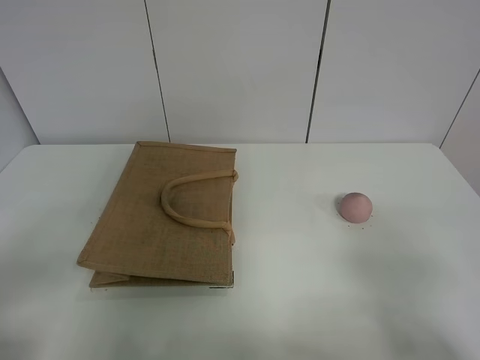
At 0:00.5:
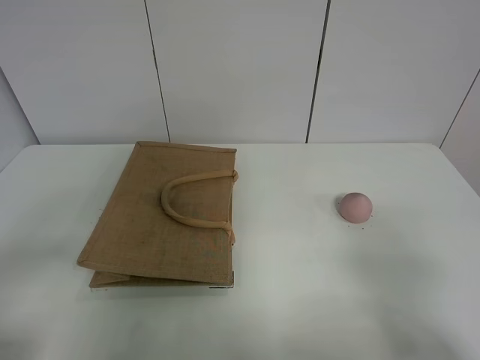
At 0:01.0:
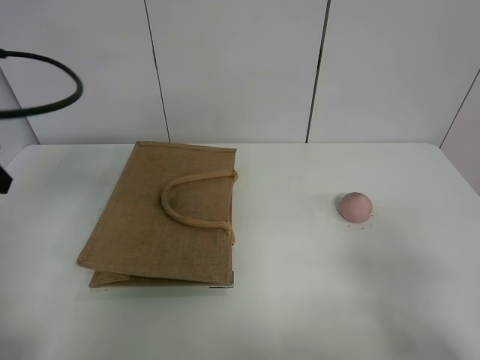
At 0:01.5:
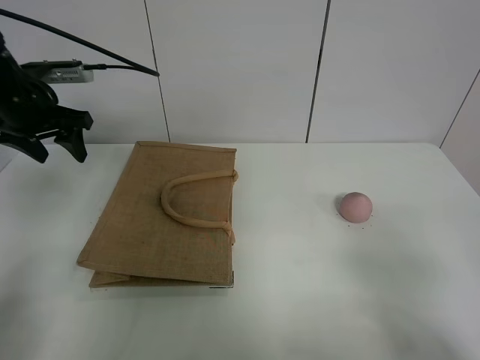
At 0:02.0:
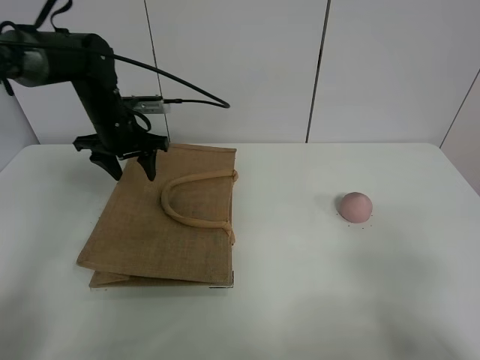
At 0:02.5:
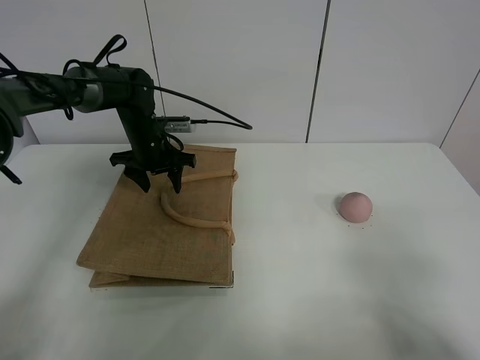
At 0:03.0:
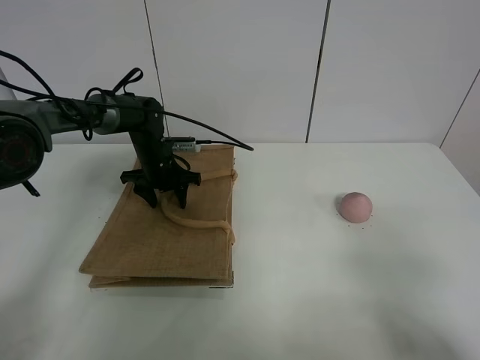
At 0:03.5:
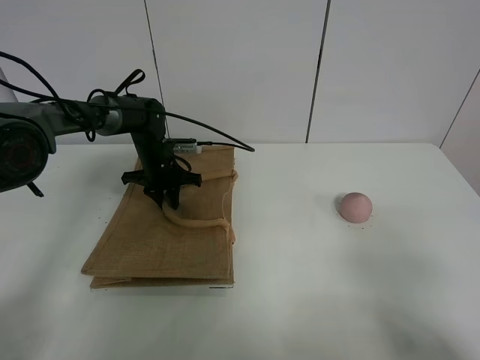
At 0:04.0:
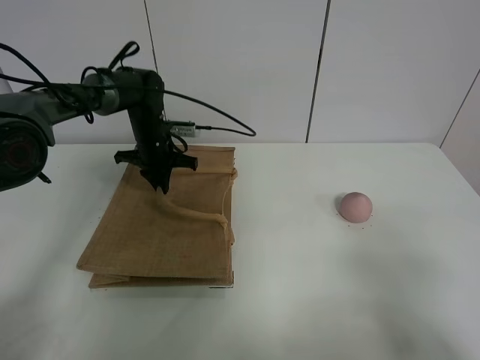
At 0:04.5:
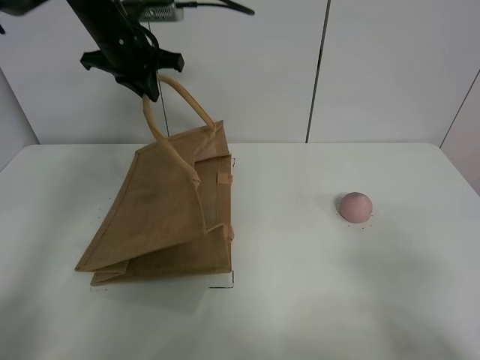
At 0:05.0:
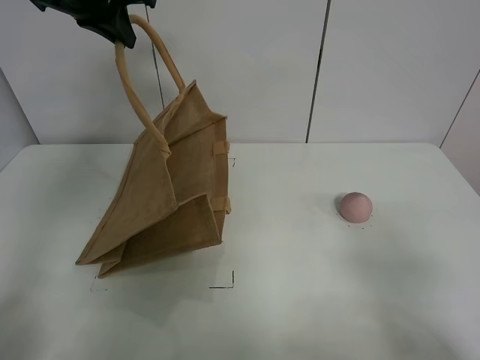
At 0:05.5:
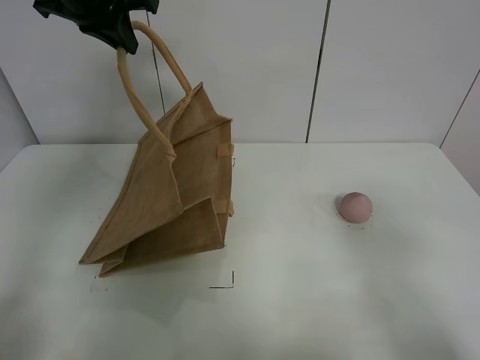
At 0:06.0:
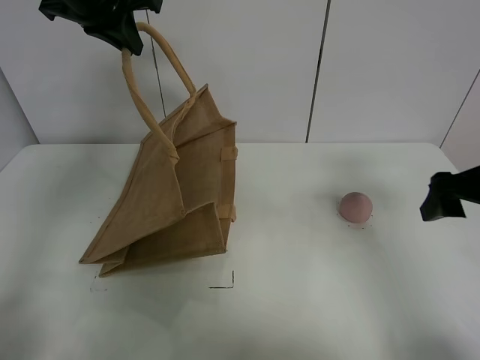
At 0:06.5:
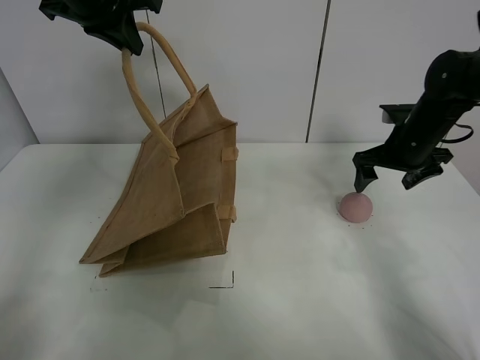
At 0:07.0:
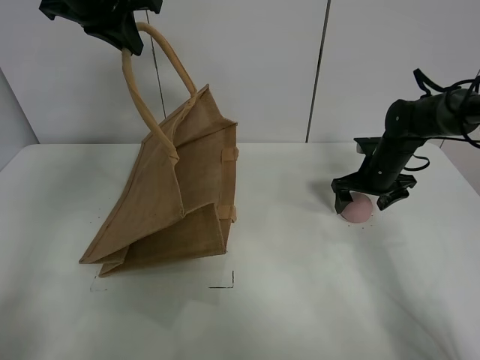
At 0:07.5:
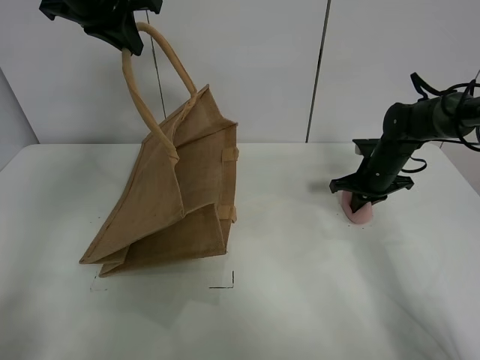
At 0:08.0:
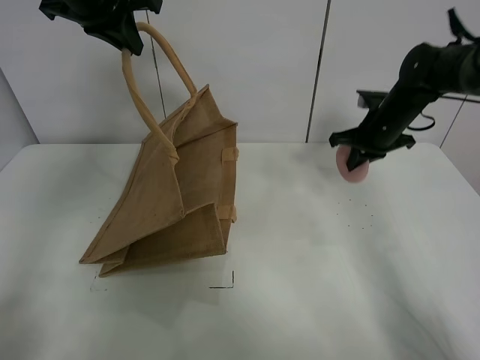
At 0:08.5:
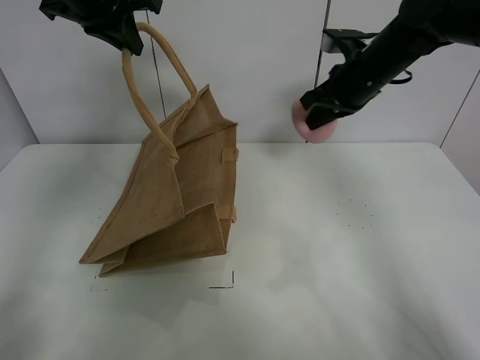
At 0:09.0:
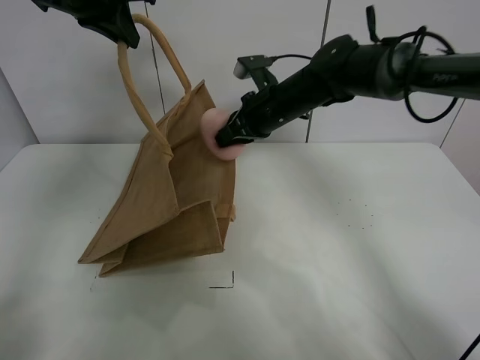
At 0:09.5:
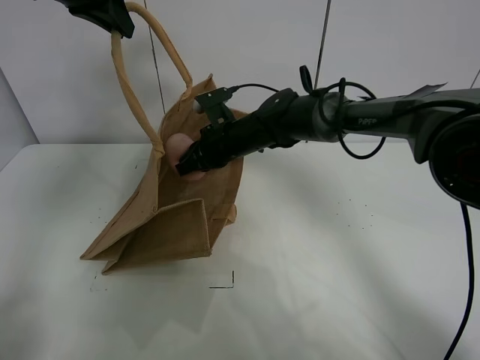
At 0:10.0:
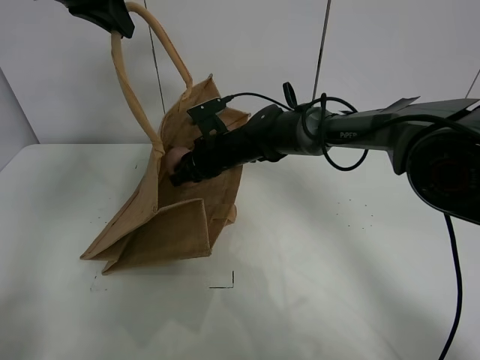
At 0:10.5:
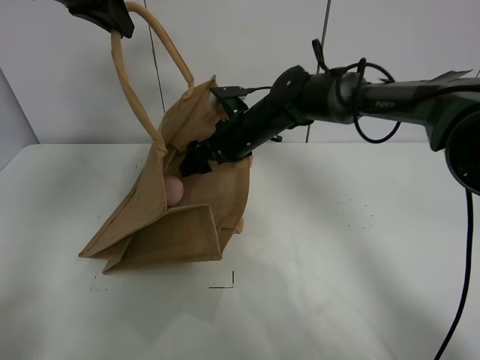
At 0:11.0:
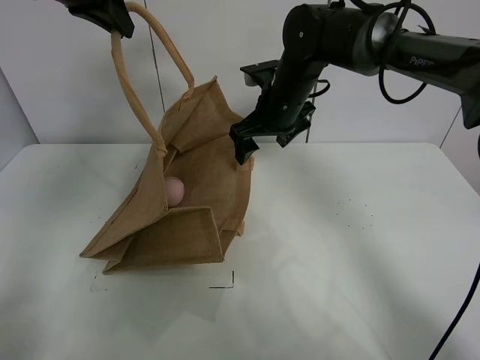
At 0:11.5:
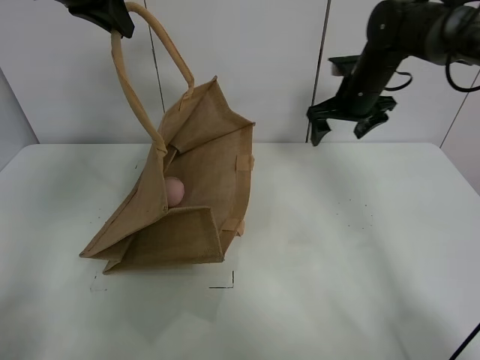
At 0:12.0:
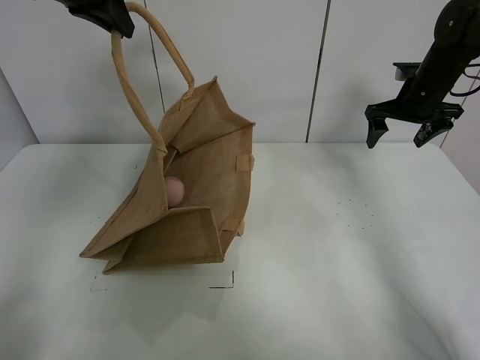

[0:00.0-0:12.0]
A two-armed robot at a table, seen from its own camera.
Task of the whole recording: open the brown linen bag and put the peach in the bag.
Step, 0:00.0 to 0:05.0: Lift the handbag with left gripper.
Step, 0:05.5 to 0:07.5: Grasp the peach with right gripper.
Step, 0:08.0 to 0:11.0: Place the peach in the handbag with right gripper.
0:00.0 to 0:02.0: The left gripper heads forward, covering roughly 40 cm.
0:02.0 to 0:04.0: The left gripper heads forward, covering approximately 5 cm, and closes its fingers.
0:04.0 to 0:06.0: The left gripper moves upward, some 25 cm. The right gripper goes approximately 25 cm forward.
0:06.0 to 0:08.0: The right gripper heads forward, covering about 20 cm, and closes up.
0:08.0 to 0:10.0: The right gripper is displaced to the left by about 25 cm, and opens its fingers.
0:10.0 to 0:12.0: The right gripper heads to the right, covering some 30 cm, and opens.

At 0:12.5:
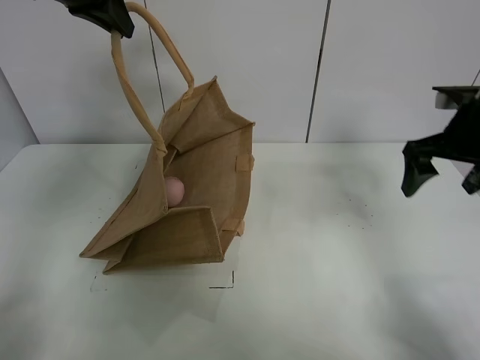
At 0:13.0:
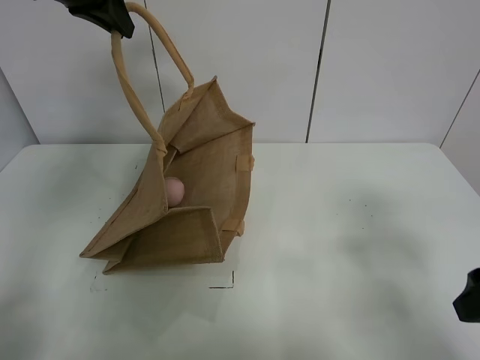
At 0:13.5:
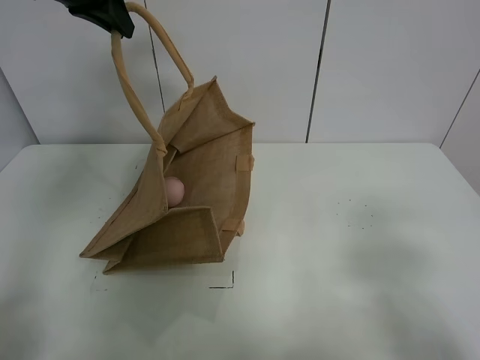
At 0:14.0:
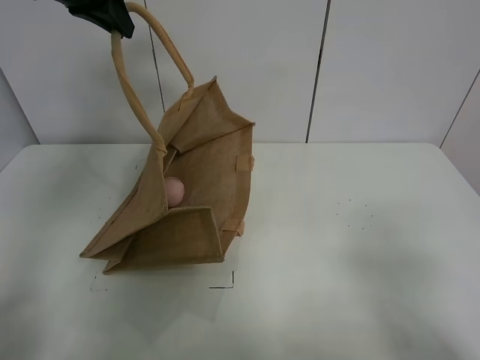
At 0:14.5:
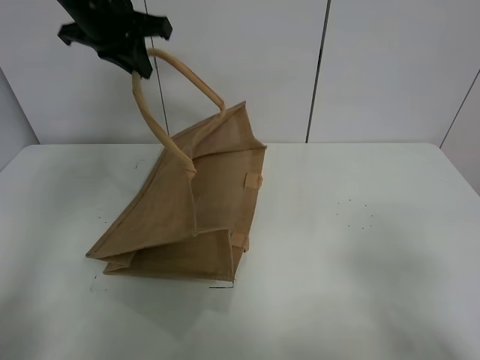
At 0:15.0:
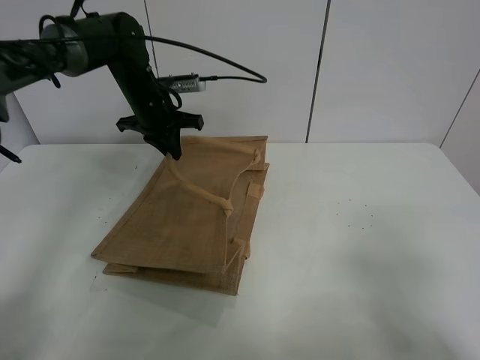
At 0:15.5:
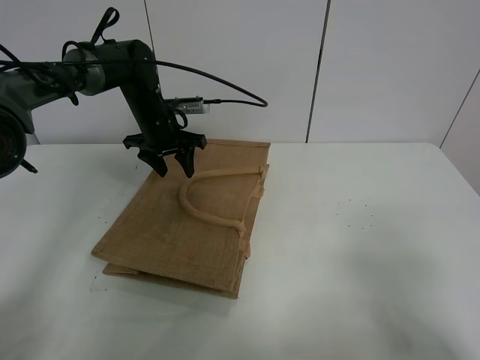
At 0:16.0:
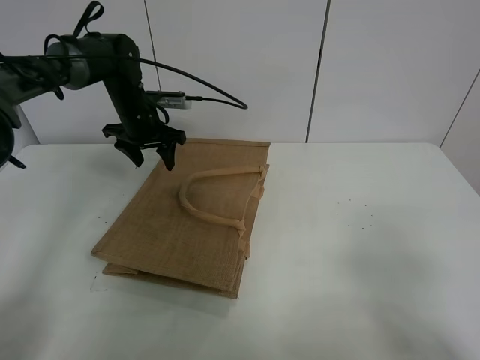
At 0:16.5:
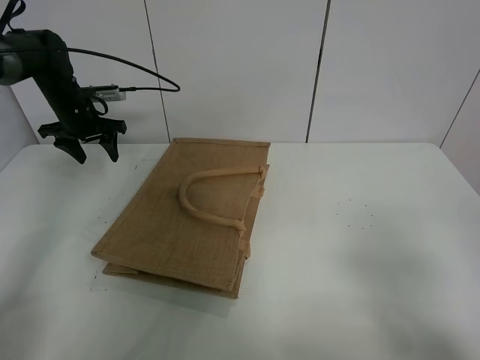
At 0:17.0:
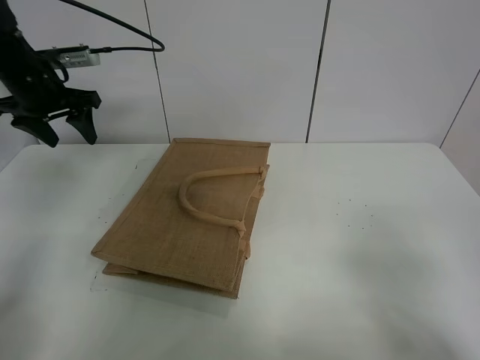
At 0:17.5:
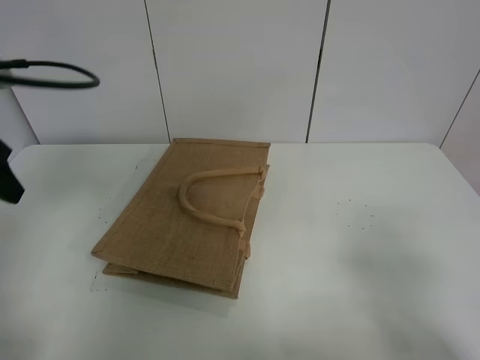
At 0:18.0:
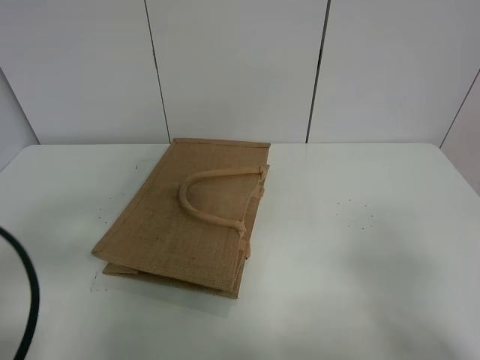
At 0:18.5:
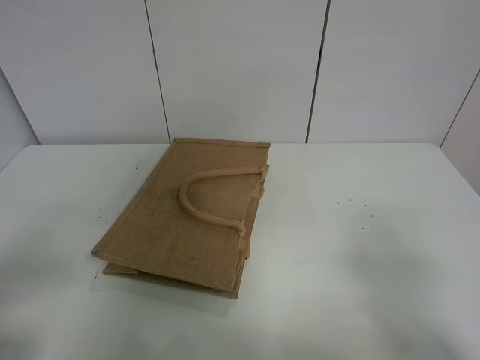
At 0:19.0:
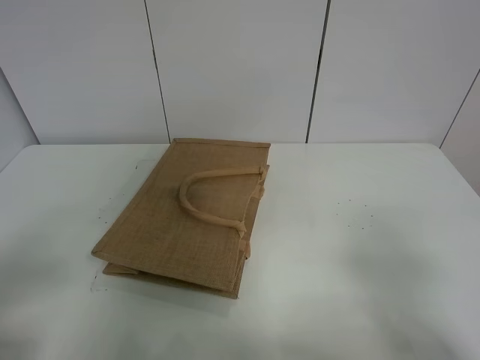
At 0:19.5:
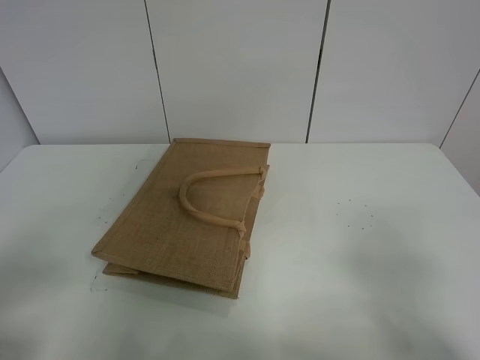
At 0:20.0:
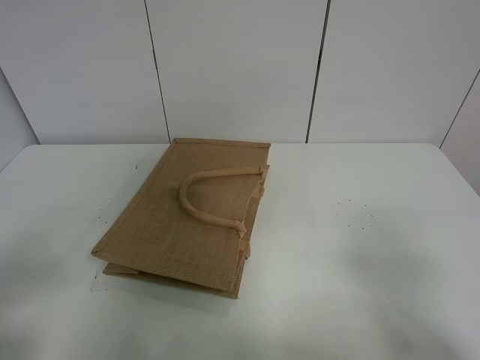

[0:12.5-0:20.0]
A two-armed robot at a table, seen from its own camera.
Task of the whole recording: open the brown linen bag and put the peach in the bag.
Step, 0:12.5 to 0:16.0: Put down the handbag with left grippe.
0:12.5 to 0:14.5: The left gripper moves downward, approximately 5 cm, while the right gripper is displaced backward by roughly 30 cm.
0:14.5 to 0:16.5: The left gripper heads downward, to the left and forward, covering some 20 cm, and opens its fingers.
0:16.5 to 0:18.0: The left gripper travels backward by some 40 cm.
0:18.0 to 0:20.0: The left gripper is displaced backward by about 5 cm.
